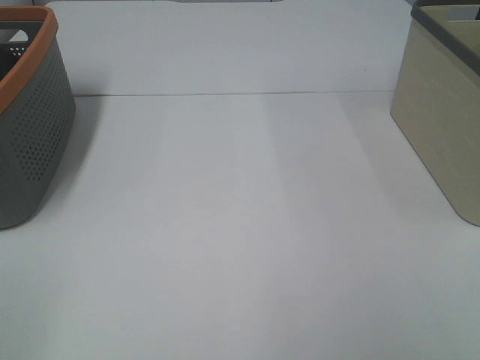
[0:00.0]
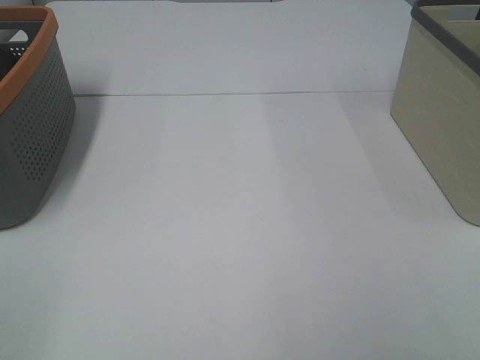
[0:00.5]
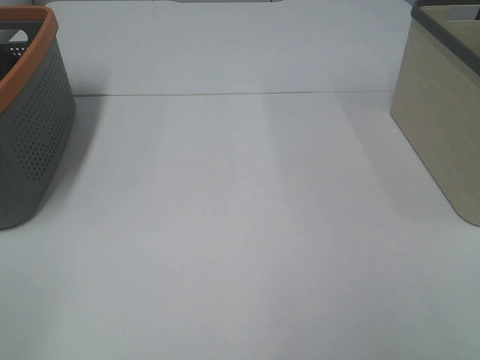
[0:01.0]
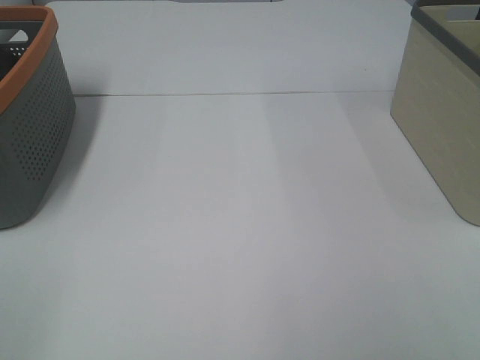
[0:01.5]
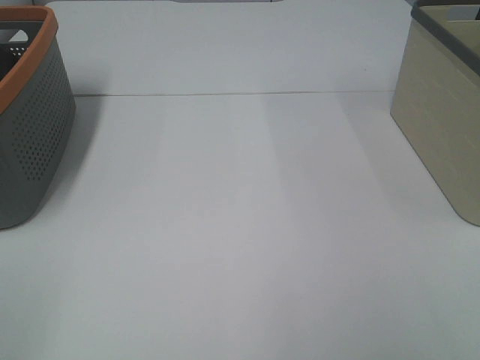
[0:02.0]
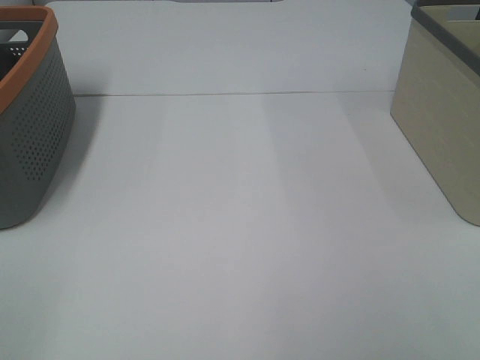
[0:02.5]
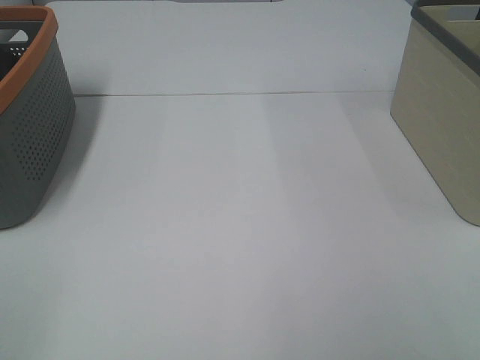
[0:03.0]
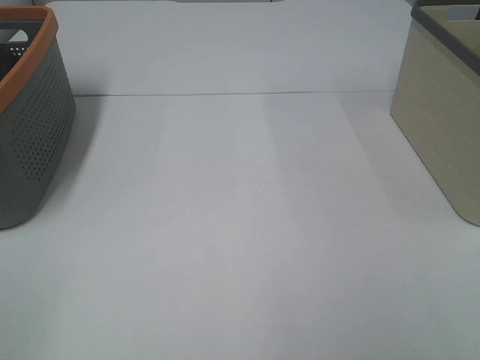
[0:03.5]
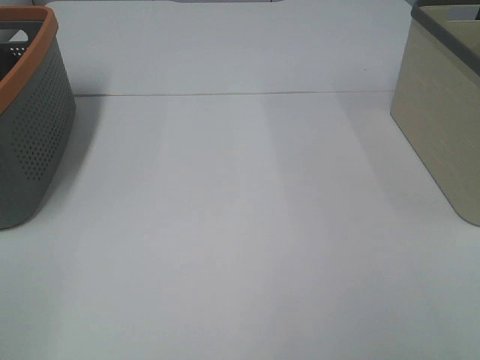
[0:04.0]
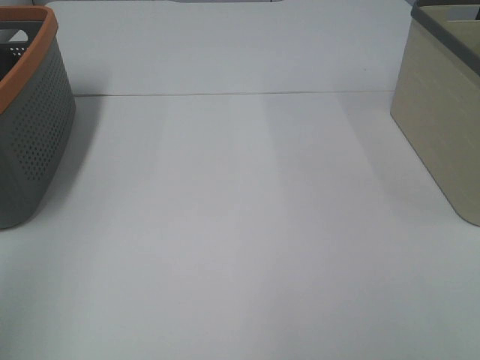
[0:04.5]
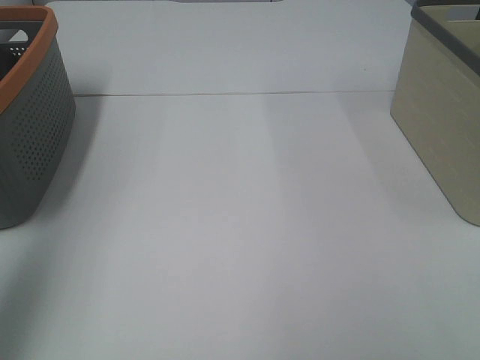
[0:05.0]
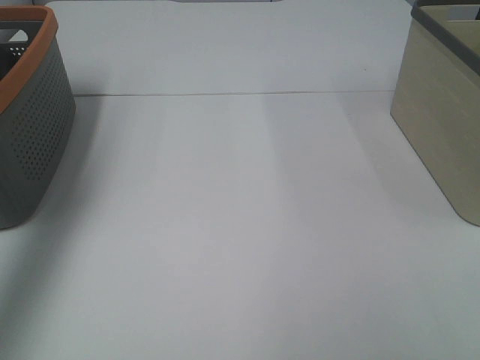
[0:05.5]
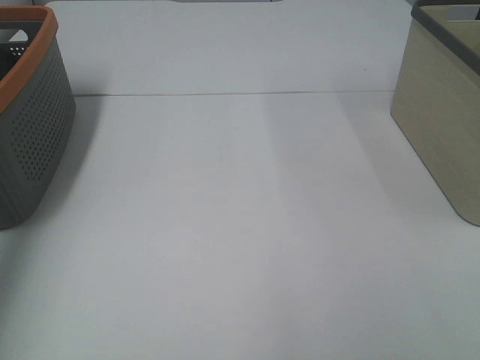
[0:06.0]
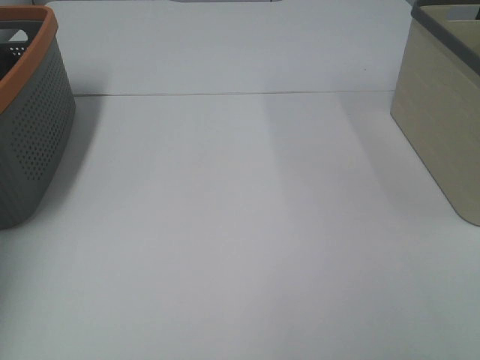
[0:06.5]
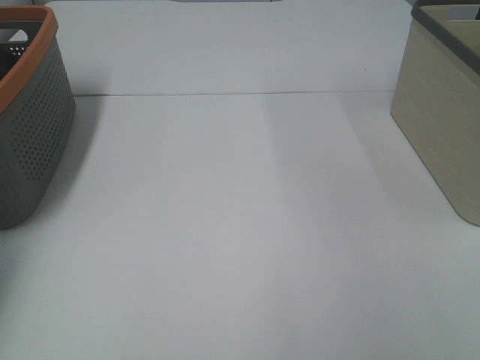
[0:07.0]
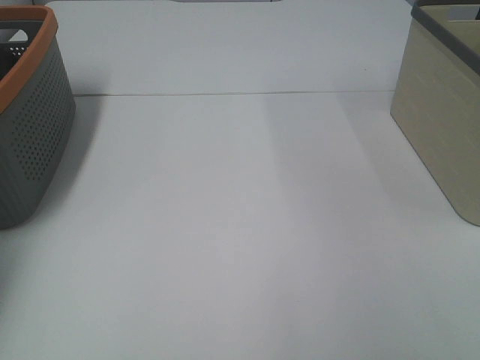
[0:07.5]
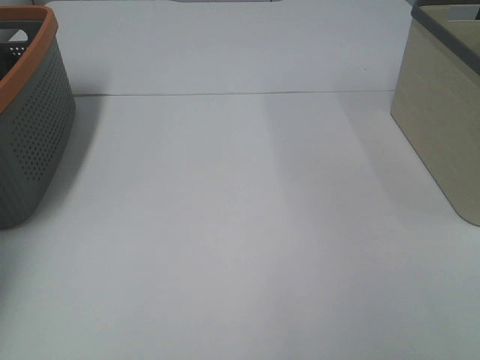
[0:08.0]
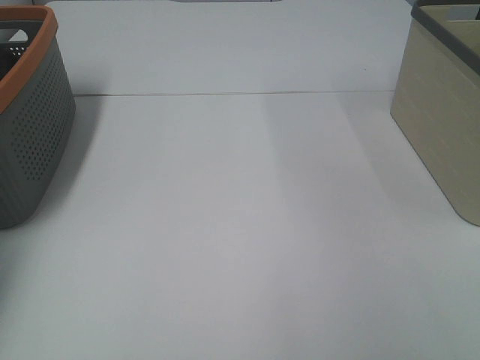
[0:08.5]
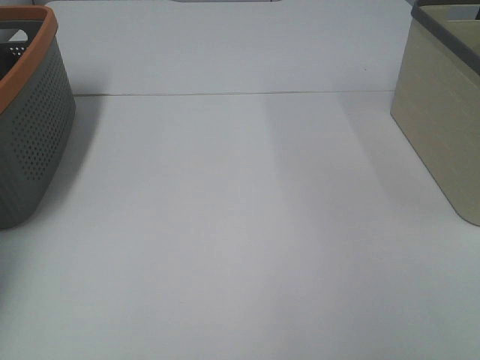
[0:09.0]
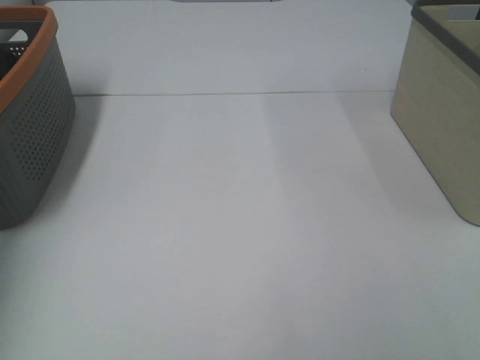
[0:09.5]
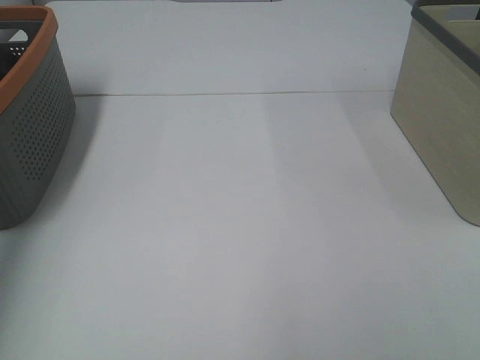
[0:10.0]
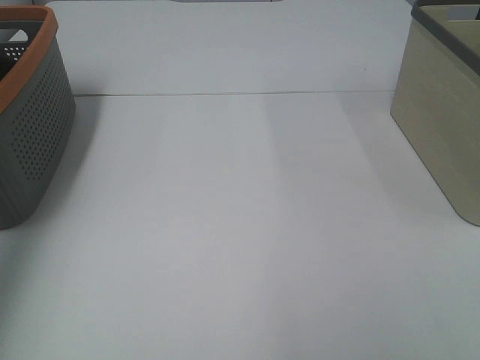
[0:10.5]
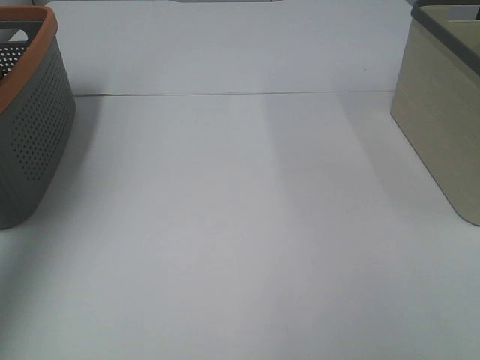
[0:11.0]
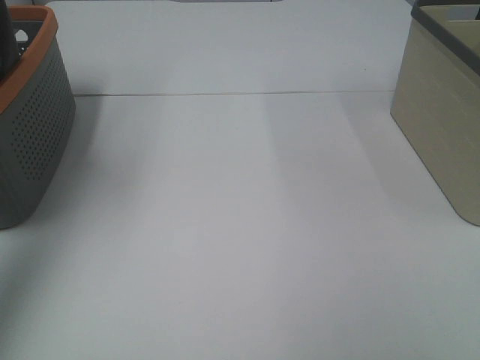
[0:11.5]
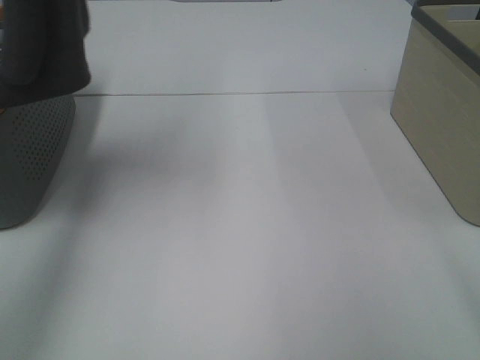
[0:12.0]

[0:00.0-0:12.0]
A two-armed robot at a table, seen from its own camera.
Task of the whole recording: Remove the towel and place it.
0:00.0 to 0:02.0: Both grippers stay about where they are.
0:04.0 to 0:06.0: The left gripper moves forward, some 40 cm.
0:10.0 to 0:12.0: The right gripper heads forward, covering about 10 cm; the left gripper heads to the right and upward, covering approximately 20 cm.

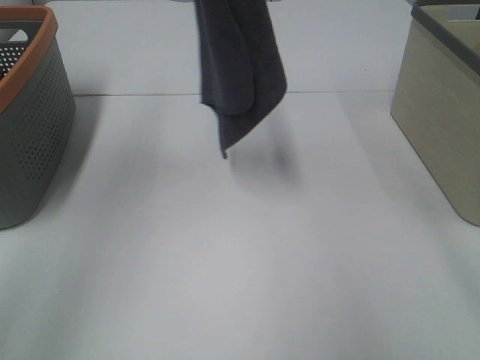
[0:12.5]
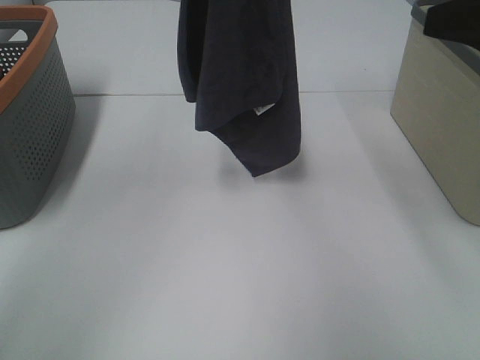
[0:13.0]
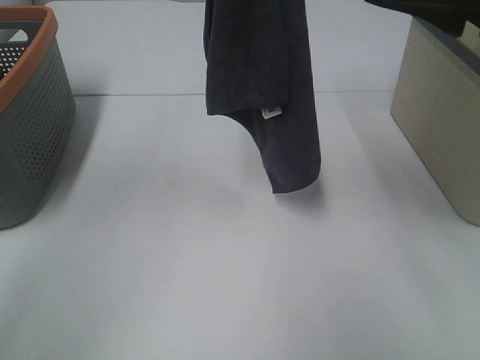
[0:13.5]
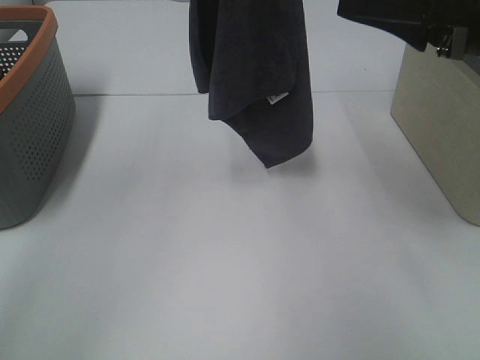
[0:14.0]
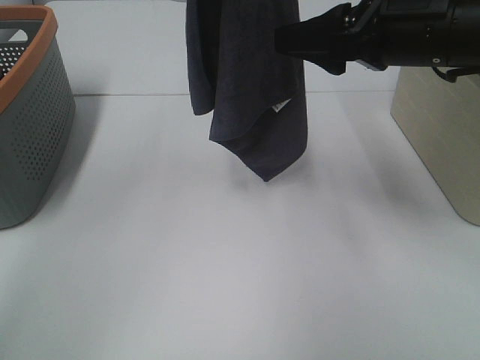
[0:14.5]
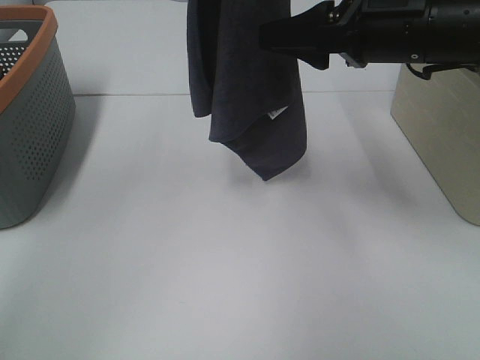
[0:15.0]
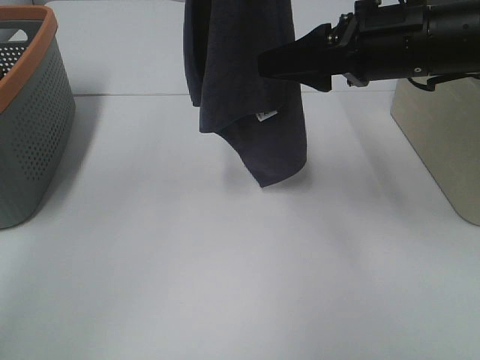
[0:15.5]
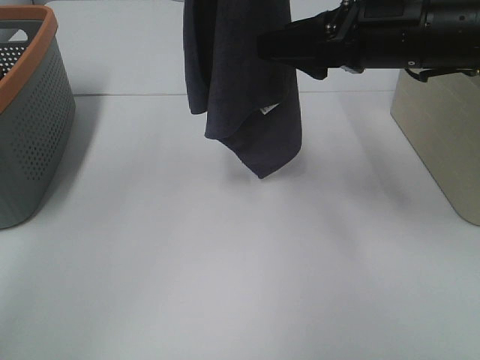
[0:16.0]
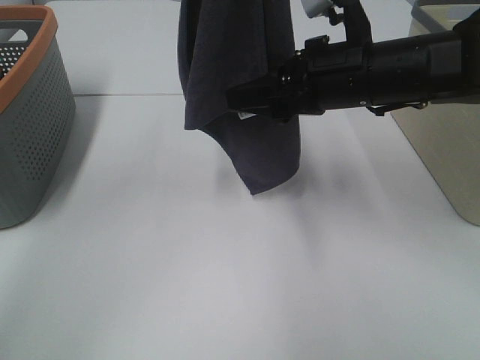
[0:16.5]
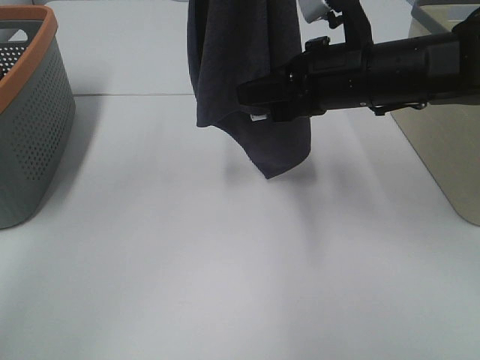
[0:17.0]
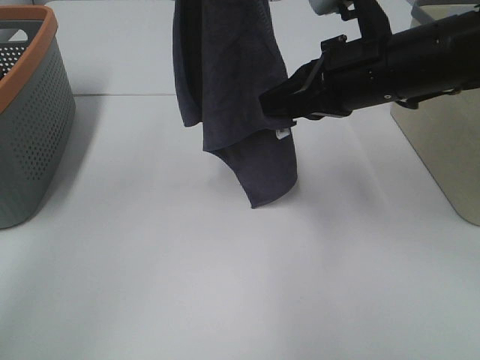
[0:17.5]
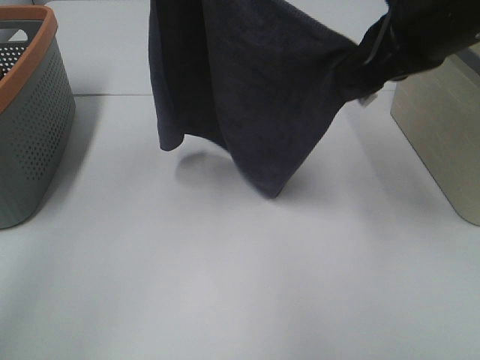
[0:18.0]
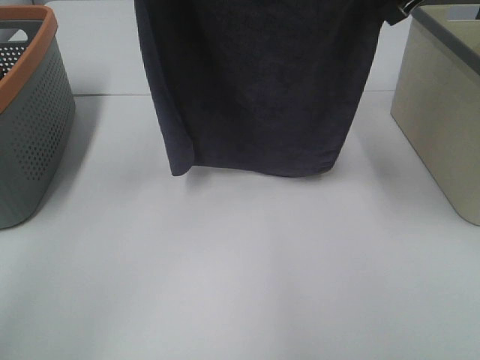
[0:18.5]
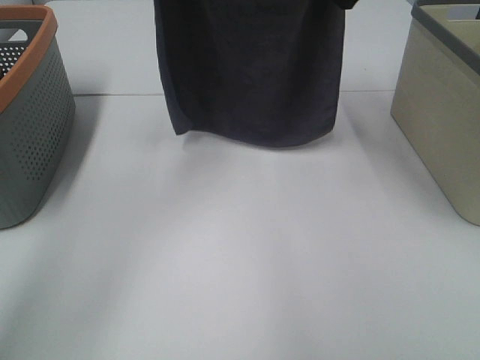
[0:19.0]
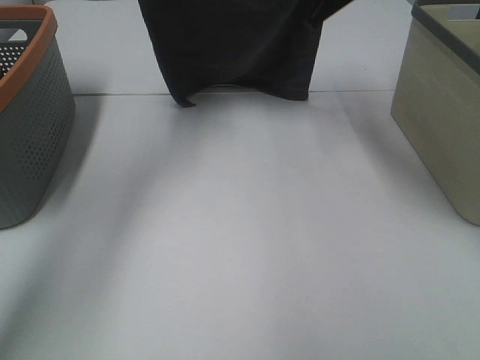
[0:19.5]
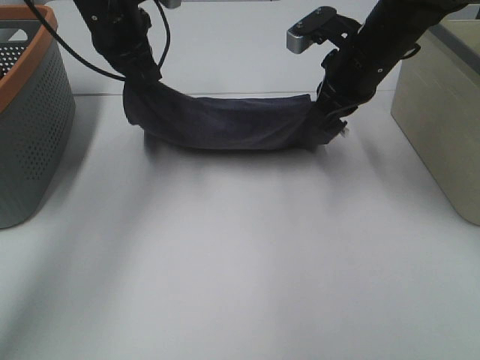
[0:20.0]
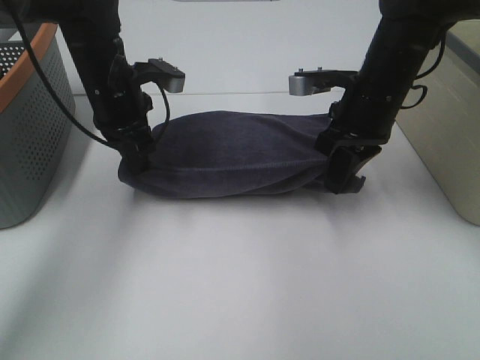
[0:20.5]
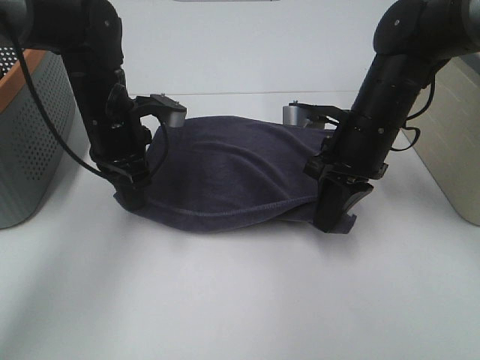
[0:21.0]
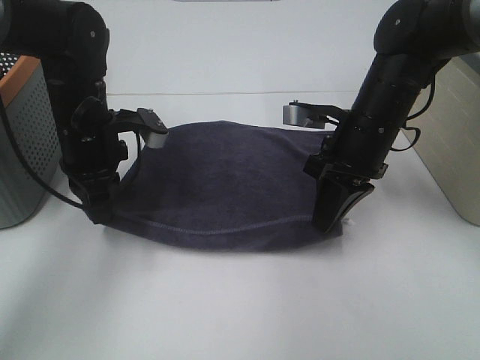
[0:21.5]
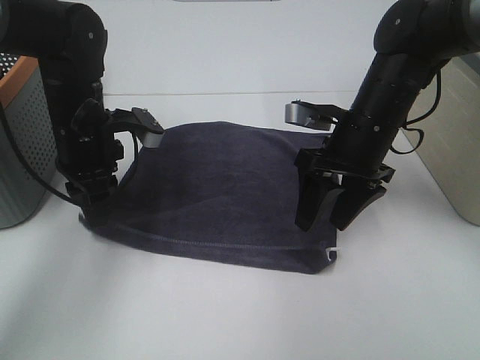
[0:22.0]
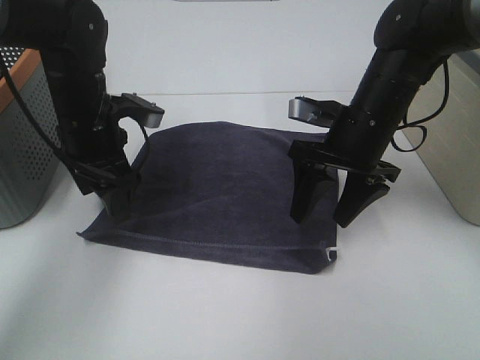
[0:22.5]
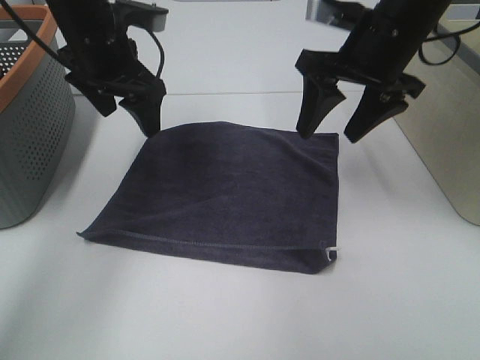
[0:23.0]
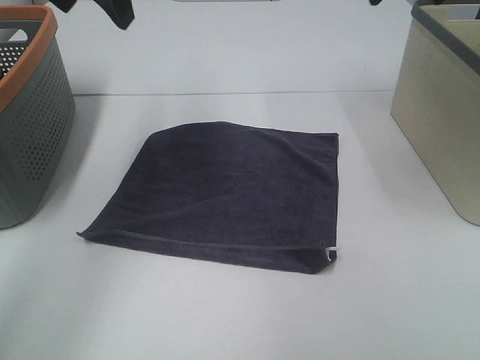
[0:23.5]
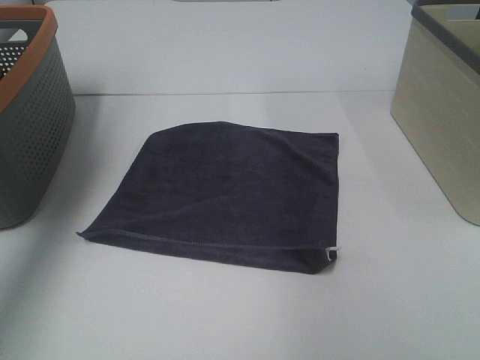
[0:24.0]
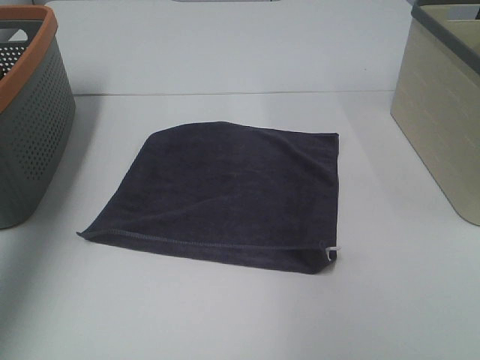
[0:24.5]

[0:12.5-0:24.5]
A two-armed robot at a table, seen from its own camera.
Task of the whole recording: Remove the towel and place it.
Step, 0:12.5 to 0:15.5: Right hand: grab a corner of the grey towel and straighten it.
Step, 0:16.0 to 0:17.0: Right hand: spread the grey towel flat on the table.
Step, 0:16.0 to 0:17.5: Left hand: spread the grey towel flat on the table.
0:12.5 to 0:14.5: The left gripper changes place by some 5 cm, while the right gripper heads forward, to the left and downward, covering approximately 20 cm.
0:14.5 to 0:16.5: The right gripper moves downward, about 5 cm.
0:16.5 to 0:18.5: The left gripper changes place by roughly 5 cm; the right gripper shifts roughly 15 cm upward, and closes.
0:18.5 to 0:20.5: Both grippers travel together downward, about 20 cm.
0:20.5 to 0:22.5: The right gripper opens up. The left gripper opens.
0:22.5 to 0:24.5: The left gripper goes about 30 cm upward and to the left. The right gripper is displaced upward and to the right by some 30 cm.

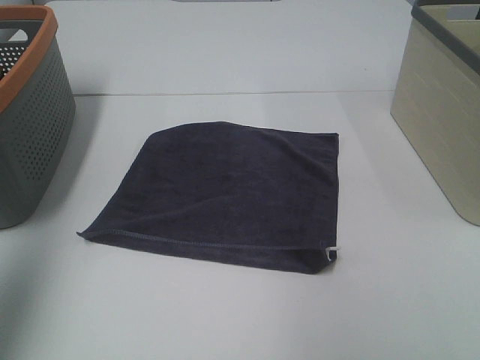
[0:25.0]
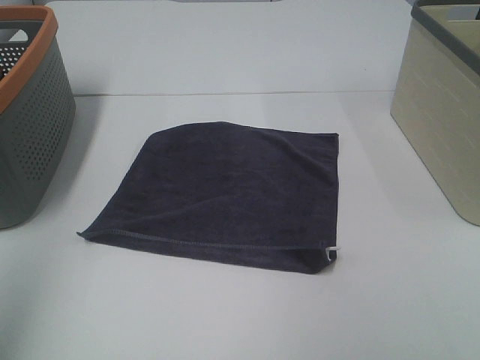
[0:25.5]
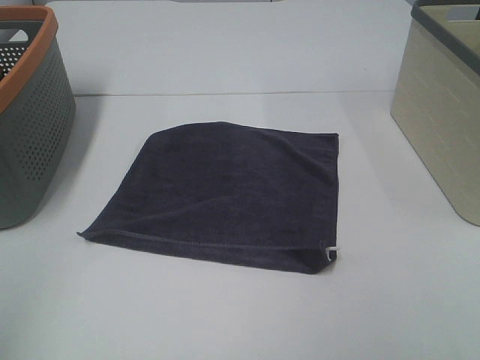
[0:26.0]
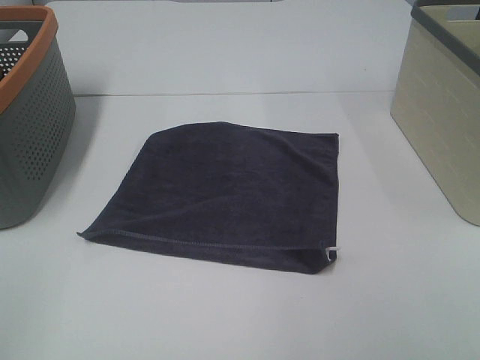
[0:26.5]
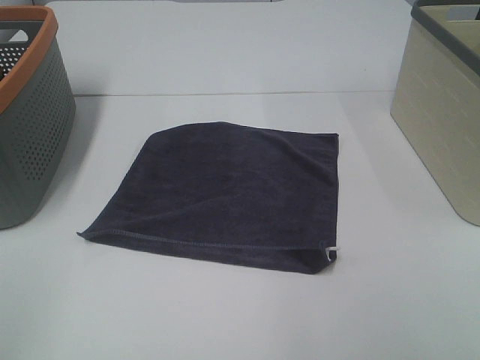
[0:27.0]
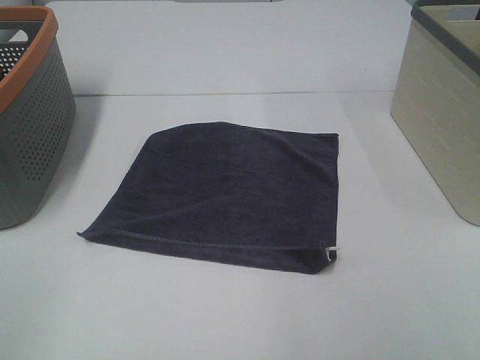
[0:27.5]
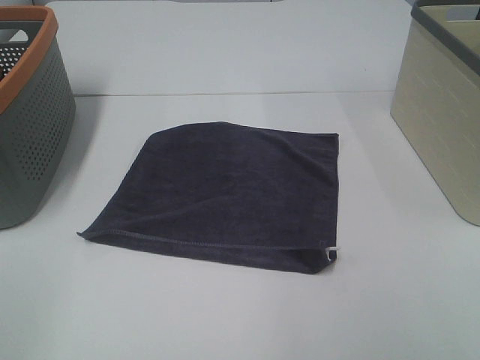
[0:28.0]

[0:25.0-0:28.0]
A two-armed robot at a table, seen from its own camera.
Task of the whole recording: Remove the towel and place it.
0:25.0 to 0:26.5: The left gripper is displaced backward and downward by some 20 cm.
